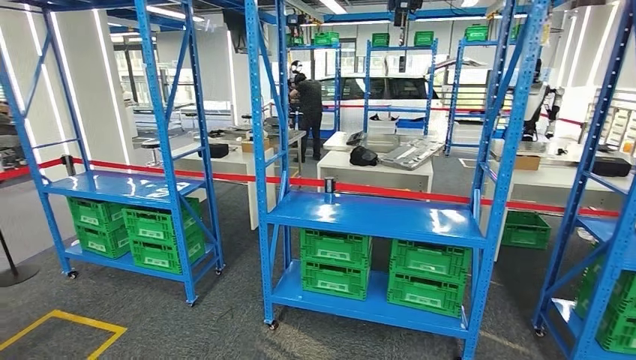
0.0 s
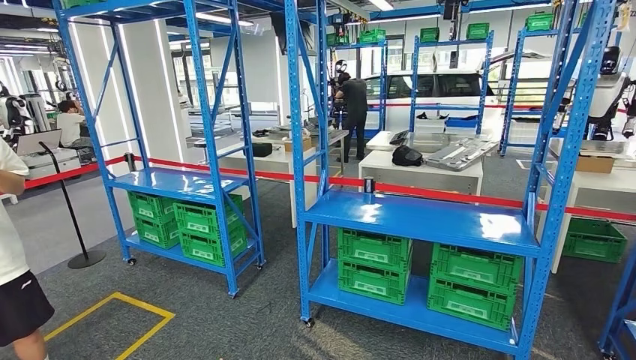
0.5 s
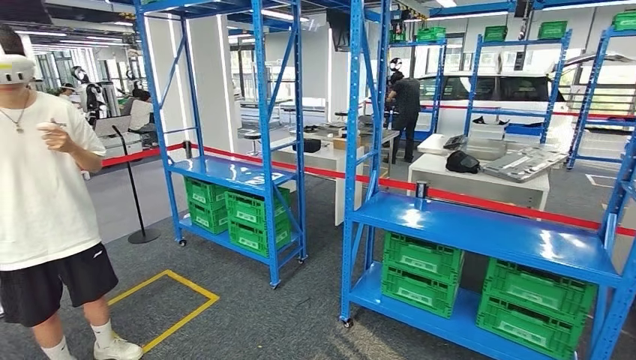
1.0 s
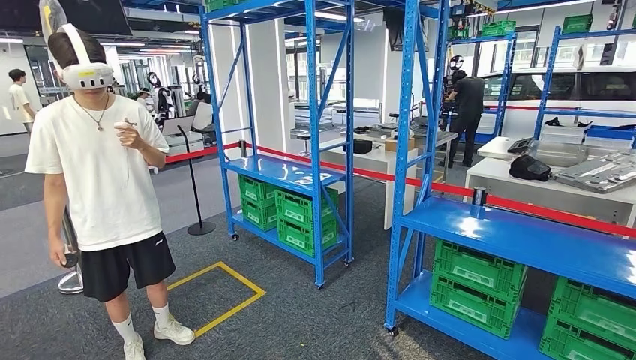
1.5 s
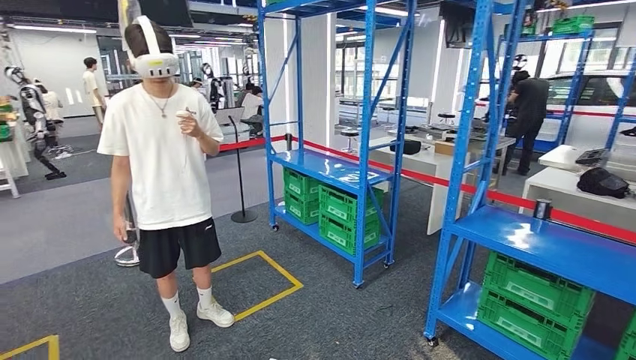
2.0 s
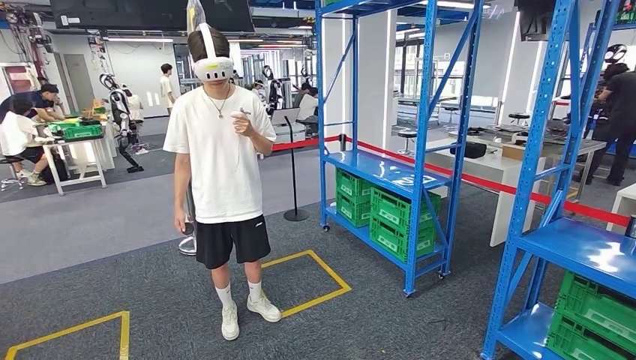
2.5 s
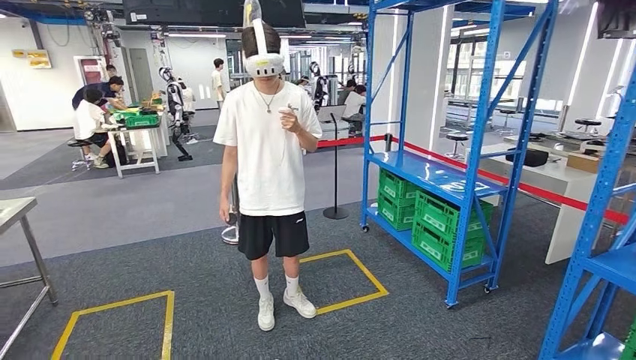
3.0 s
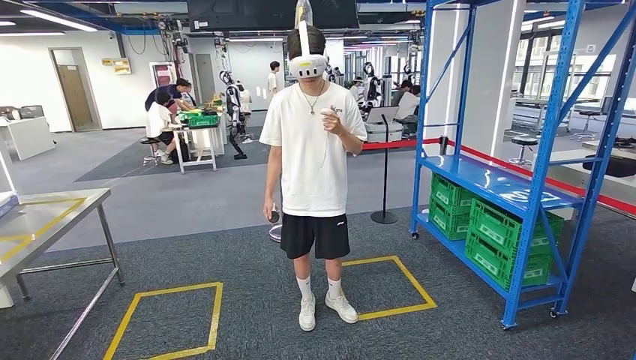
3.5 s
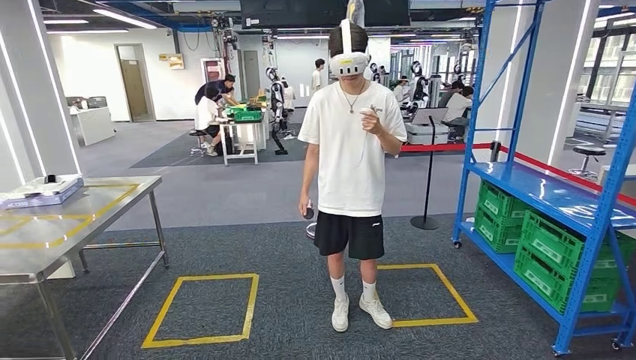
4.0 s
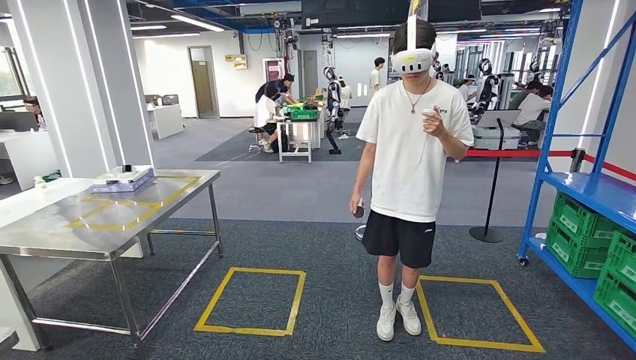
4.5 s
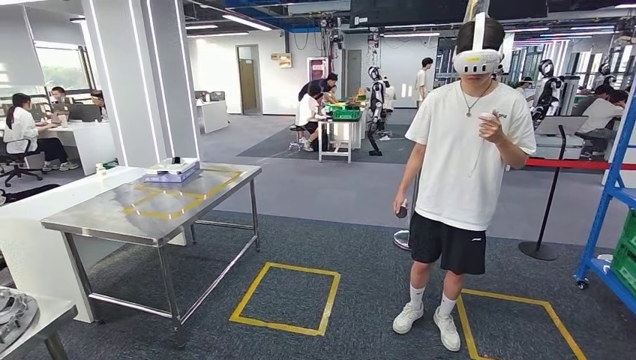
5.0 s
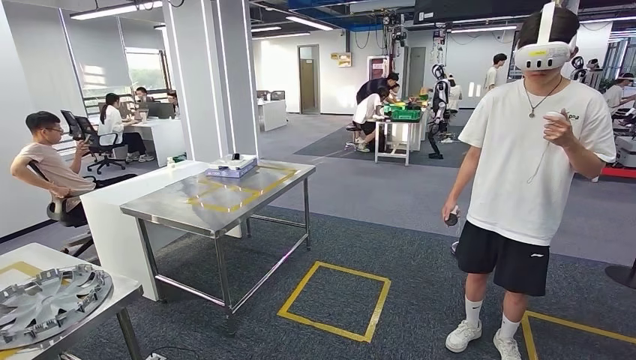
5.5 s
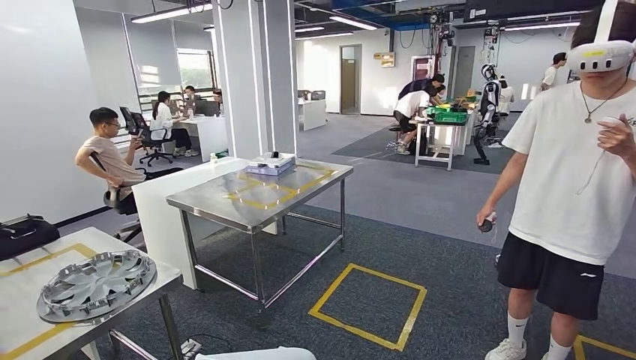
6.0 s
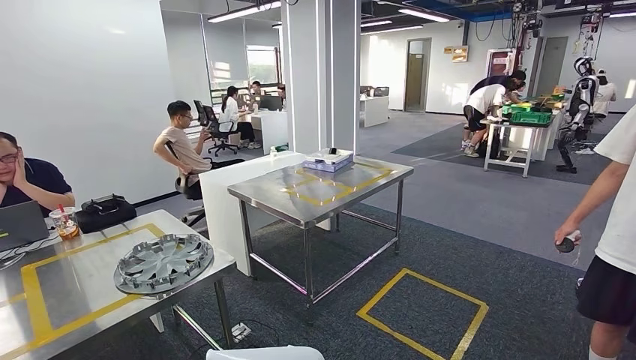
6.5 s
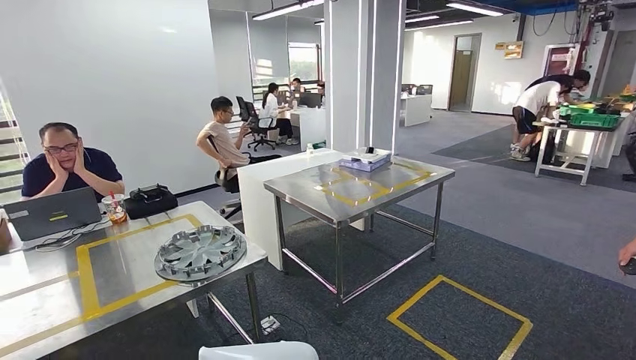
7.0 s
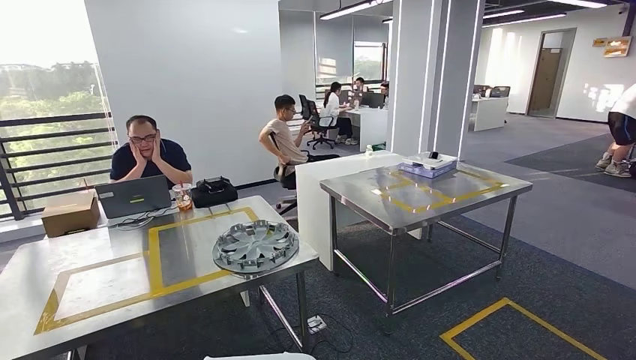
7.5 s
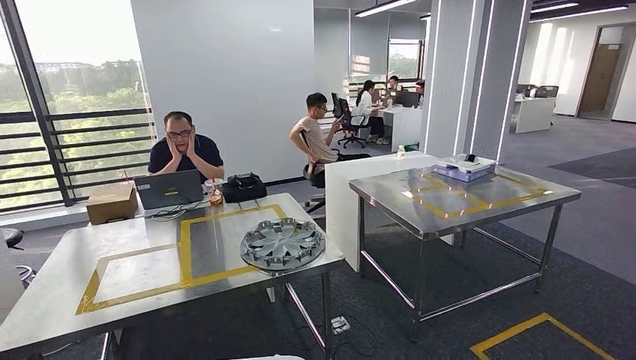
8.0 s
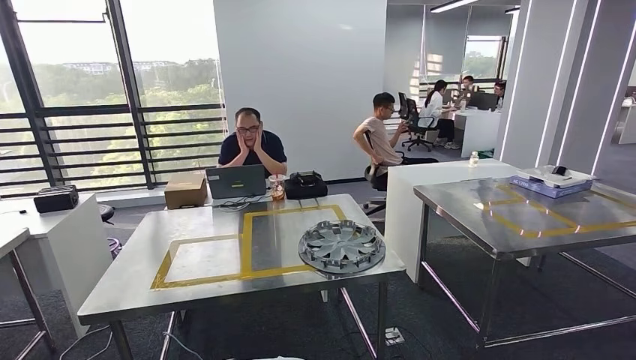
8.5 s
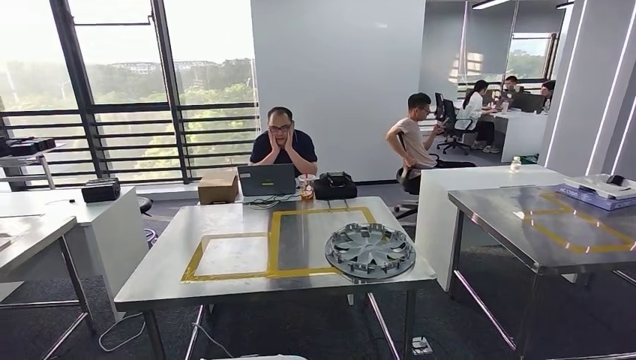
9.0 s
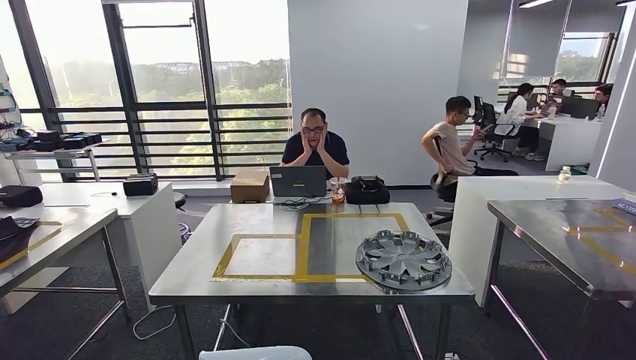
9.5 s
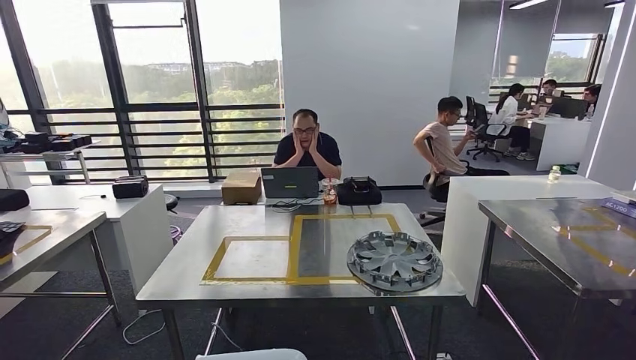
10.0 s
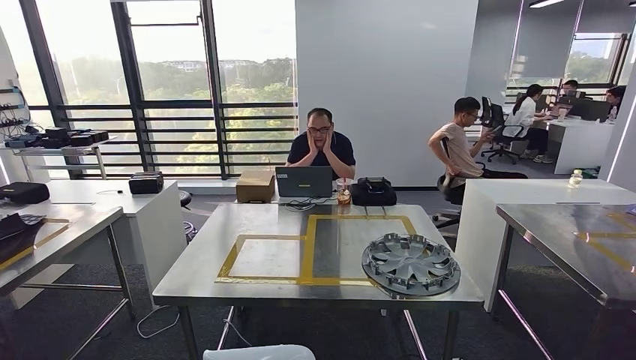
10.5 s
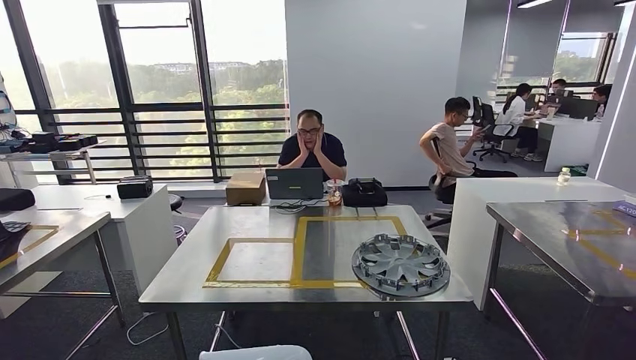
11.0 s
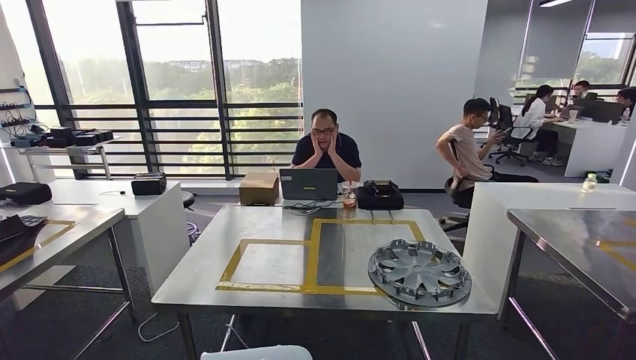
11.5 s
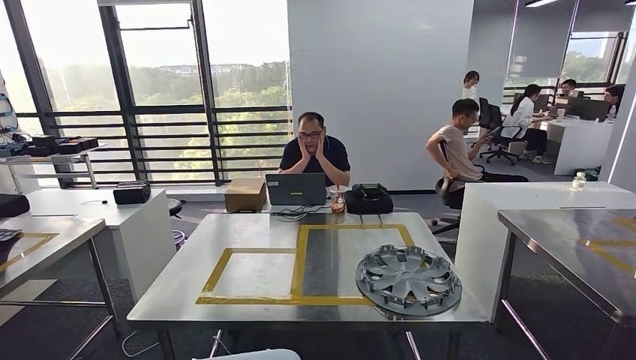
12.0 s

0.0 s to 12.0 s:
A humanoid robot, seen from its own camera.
Step, 0.0 to 10.0 s: Move the small parts to the workbench.

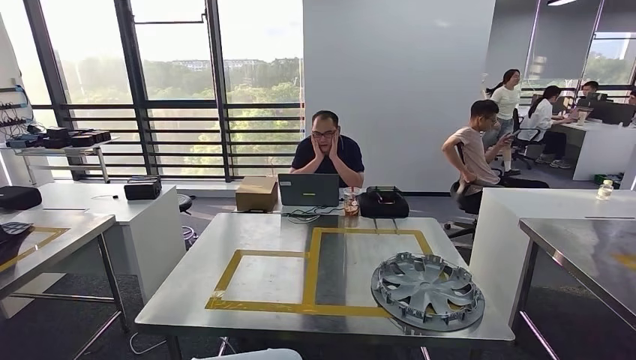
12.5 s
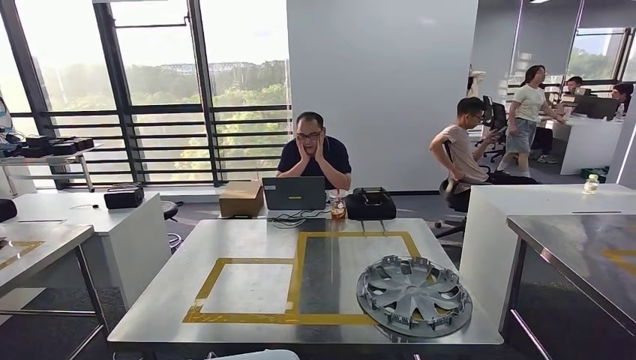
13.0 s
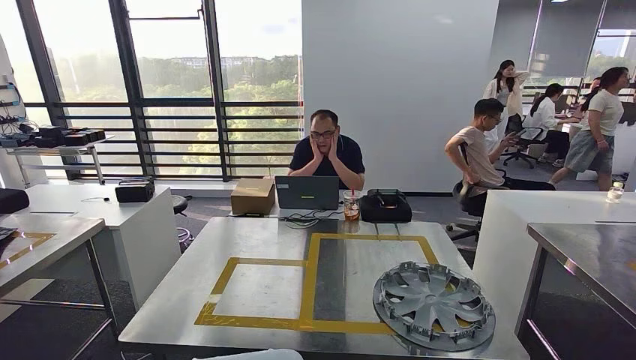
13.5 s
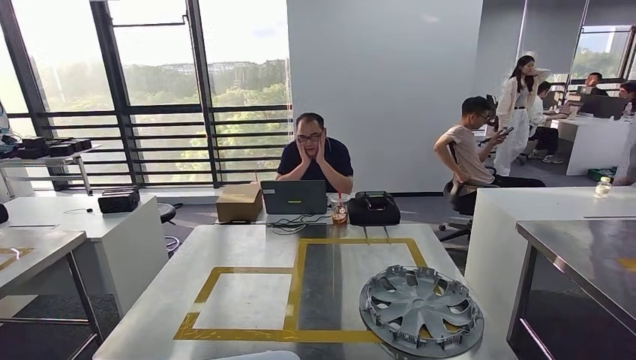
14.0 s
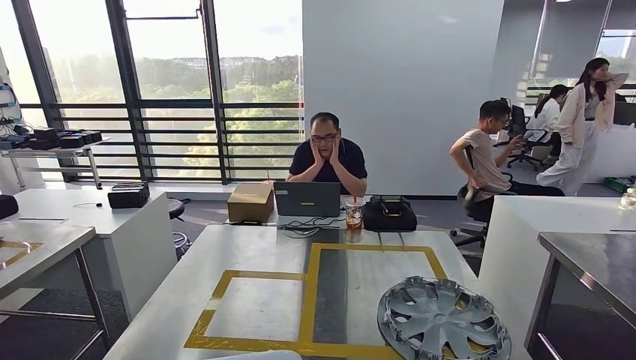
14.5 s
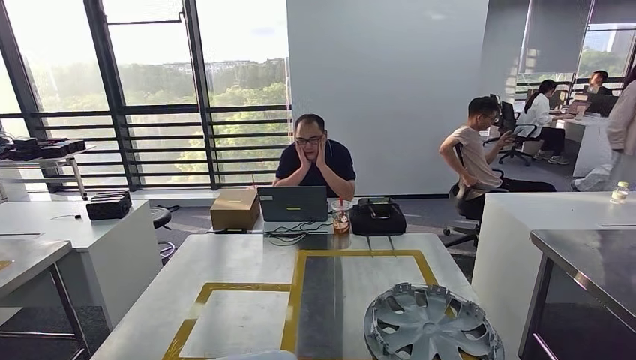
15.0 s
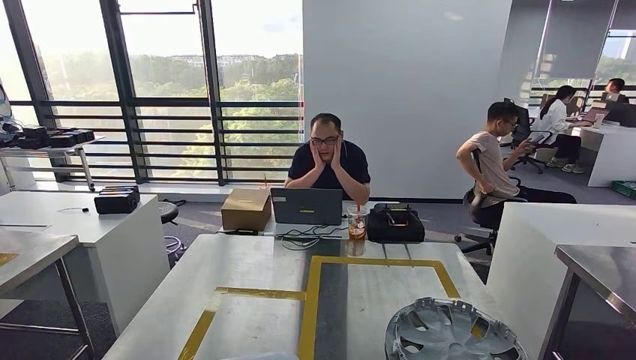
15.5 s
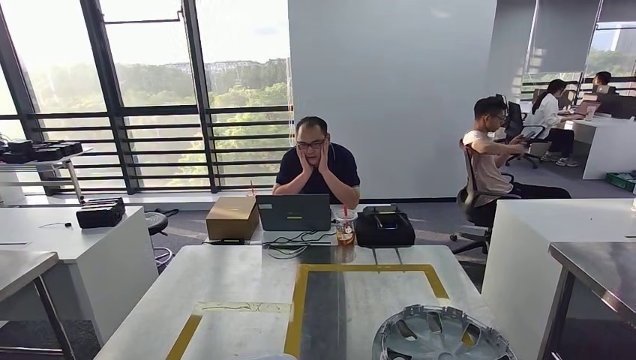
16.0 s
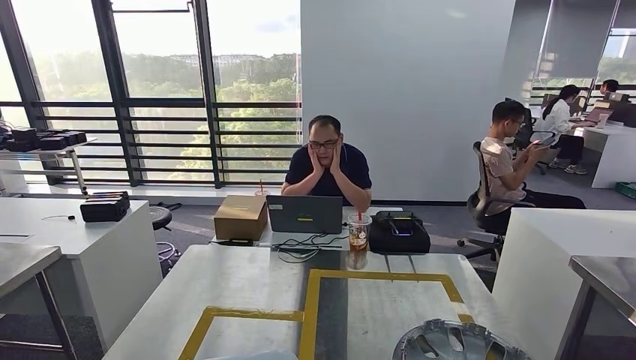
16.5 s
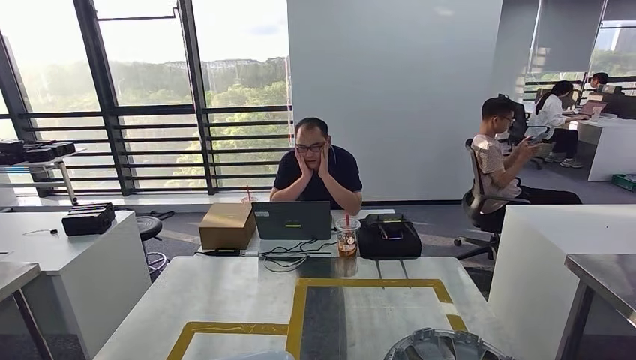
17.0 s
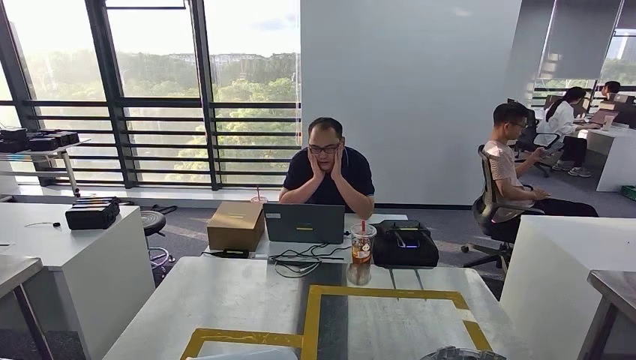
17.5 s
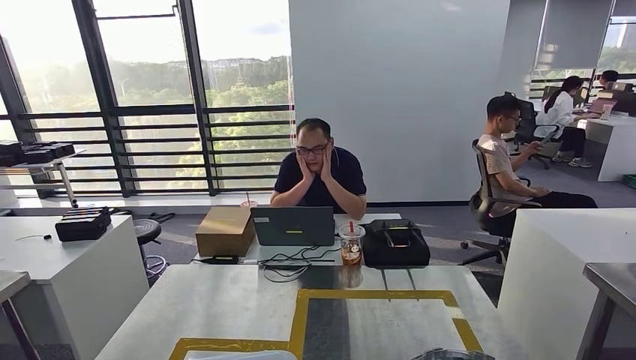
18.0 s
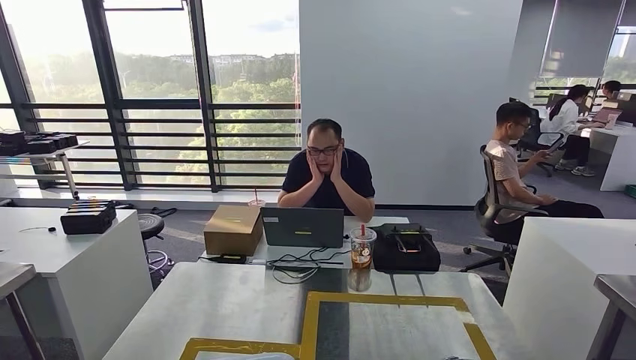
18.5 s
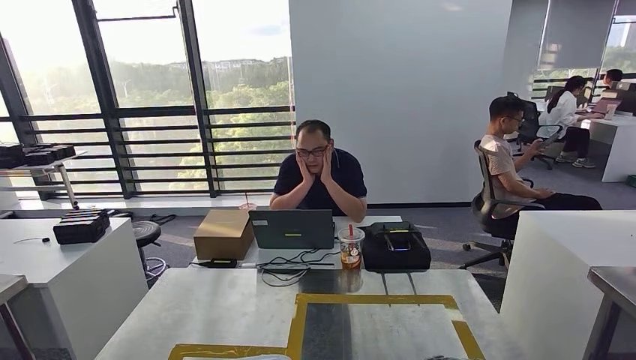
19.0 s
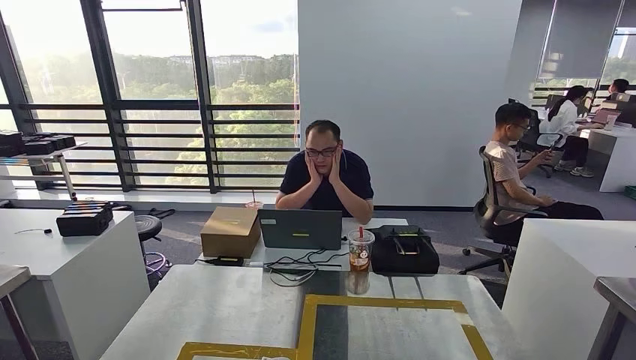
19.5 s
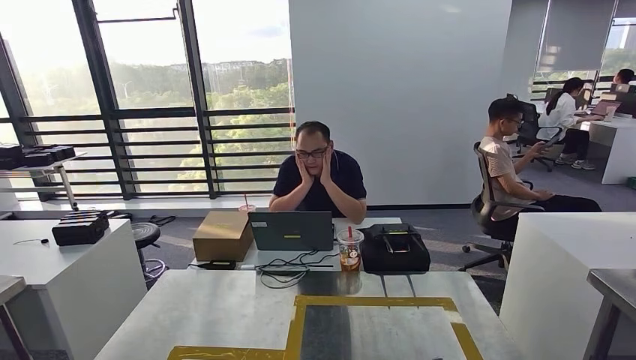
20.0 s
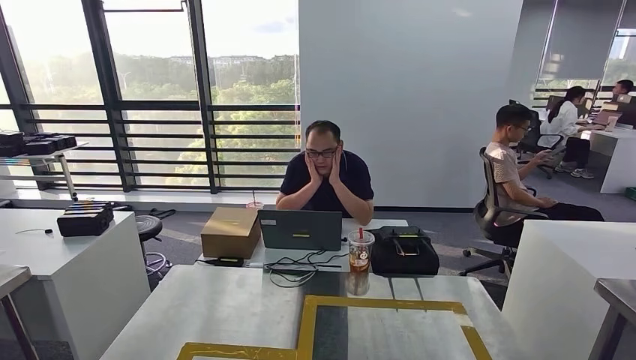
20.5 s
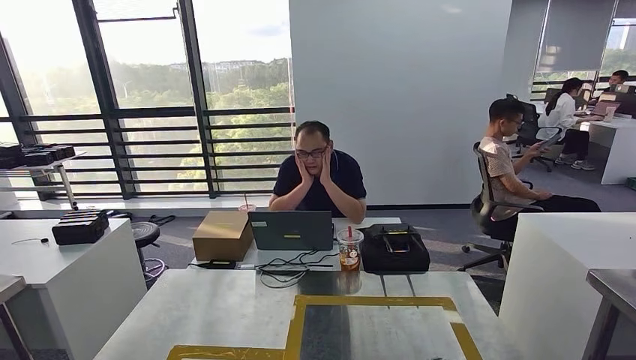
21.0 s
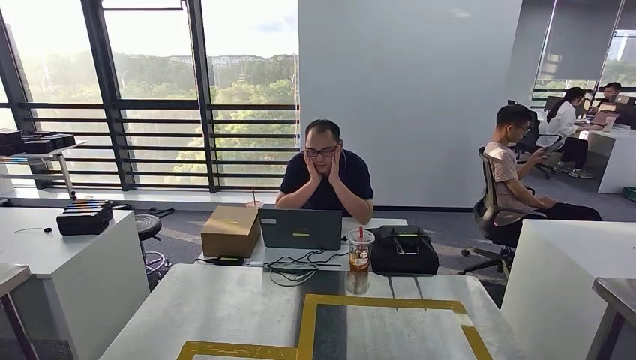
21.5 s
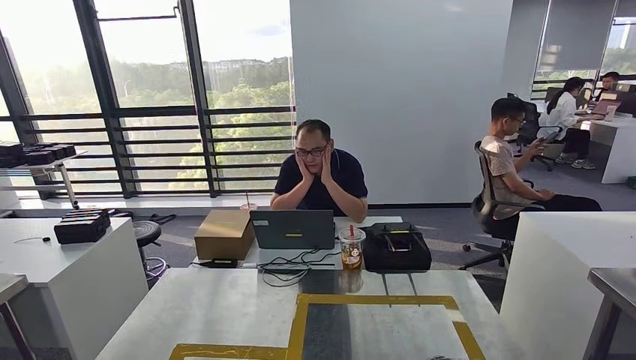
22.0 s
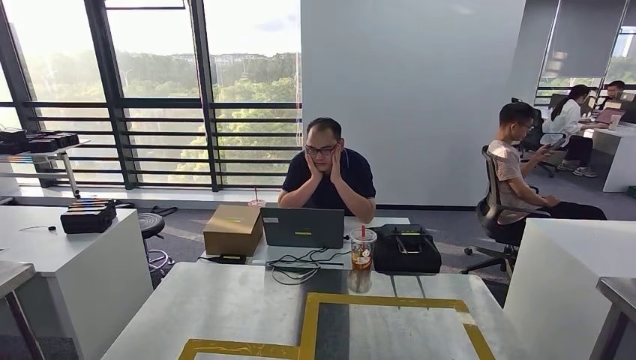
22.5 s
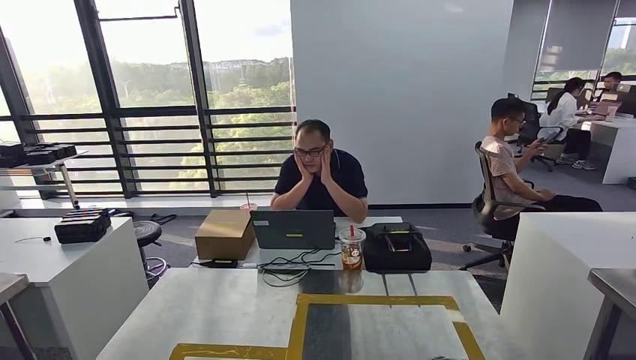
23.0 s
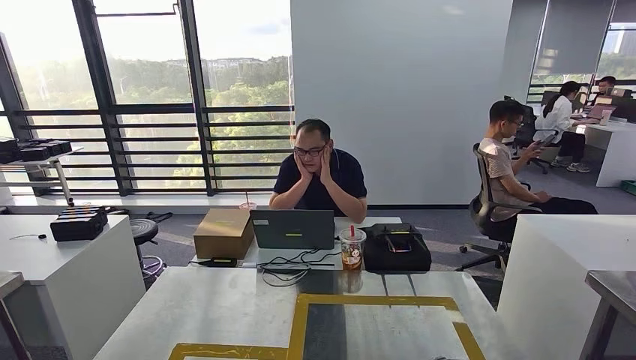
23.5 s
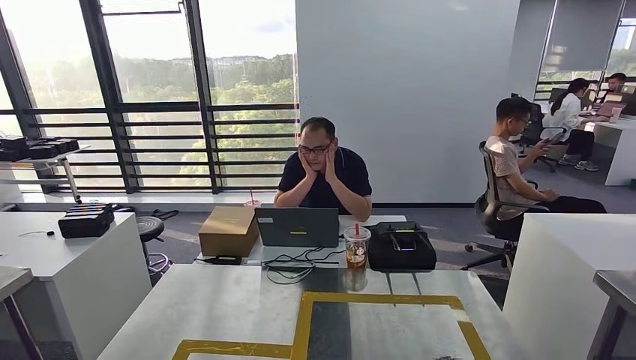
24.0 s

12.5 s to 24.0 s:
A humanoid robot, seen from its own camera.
20.0 to 22.0 s: The left hand is displaced downward, forward and to the right by roughly 15 cm. The right hand changes place by some 5 cm.
